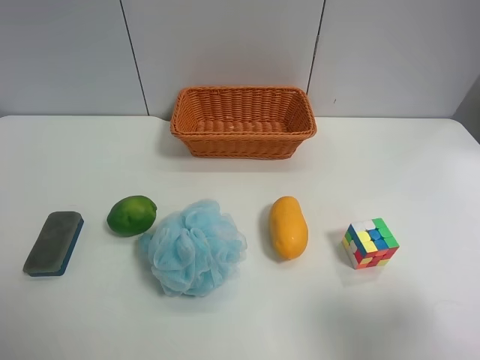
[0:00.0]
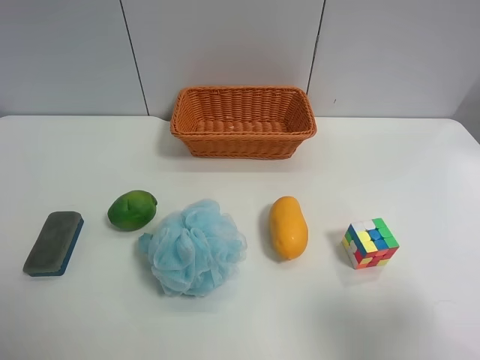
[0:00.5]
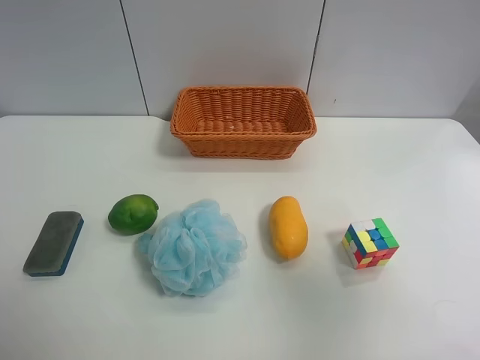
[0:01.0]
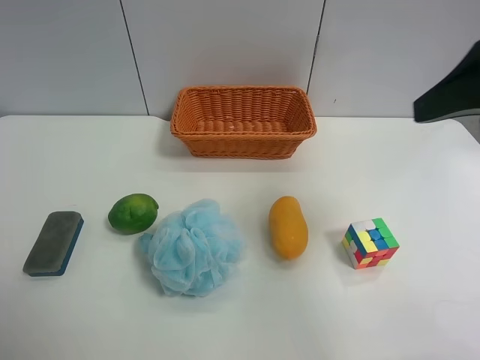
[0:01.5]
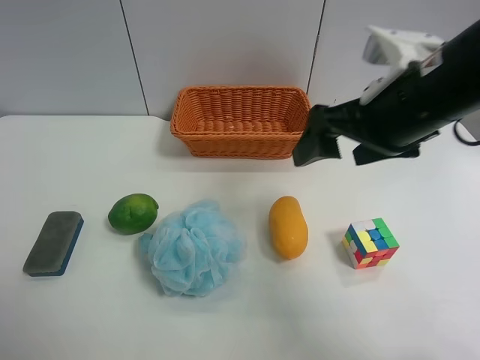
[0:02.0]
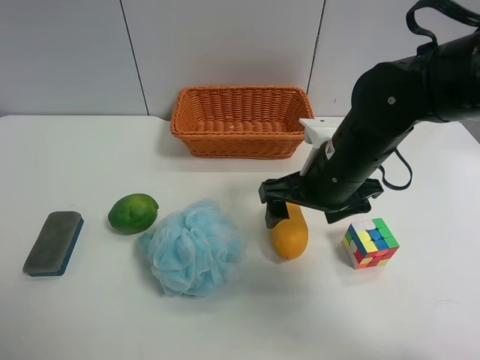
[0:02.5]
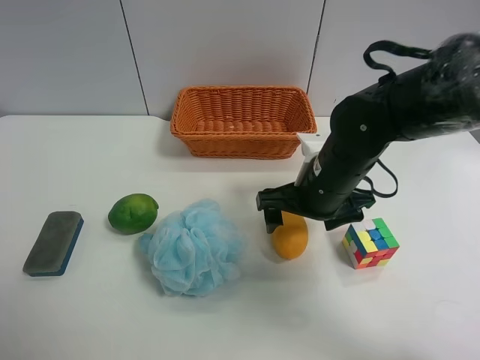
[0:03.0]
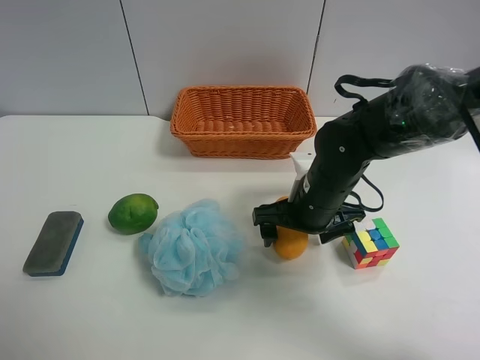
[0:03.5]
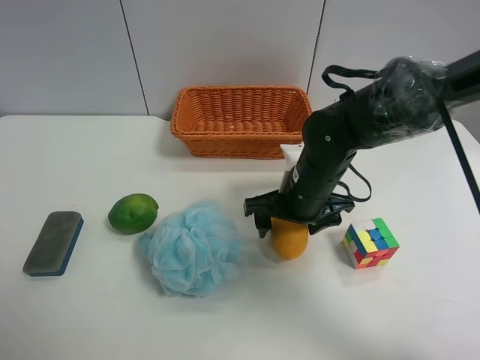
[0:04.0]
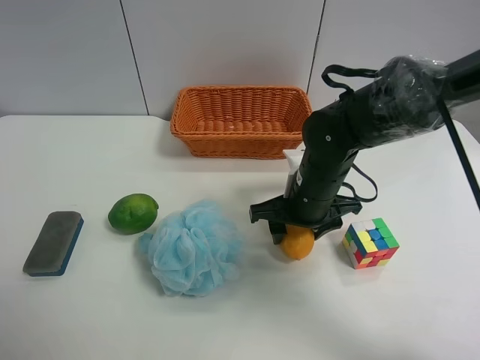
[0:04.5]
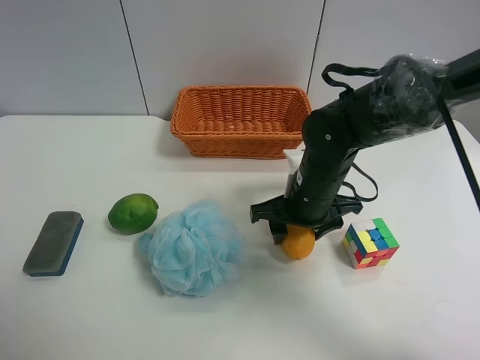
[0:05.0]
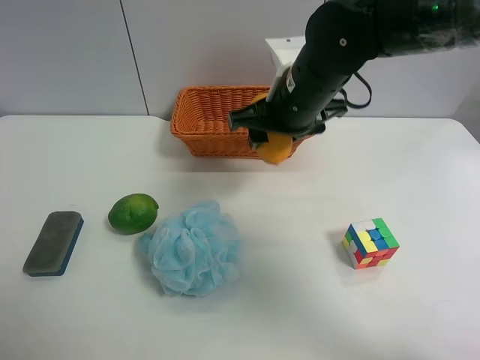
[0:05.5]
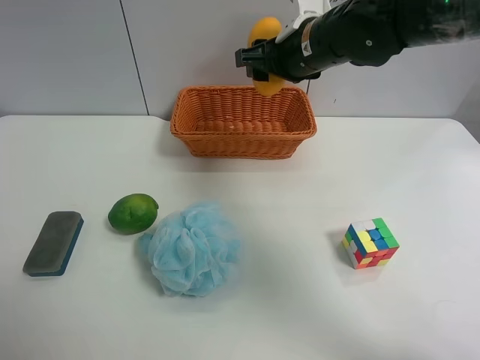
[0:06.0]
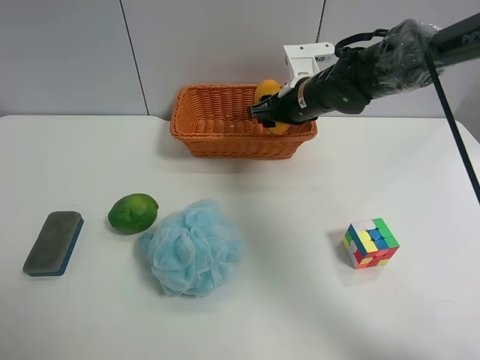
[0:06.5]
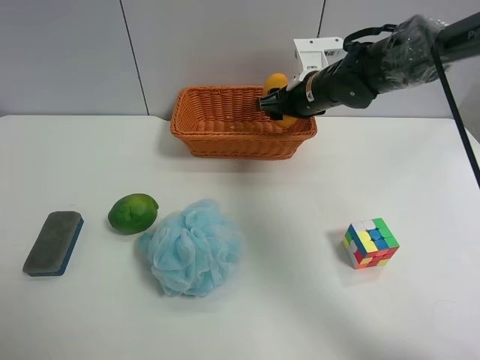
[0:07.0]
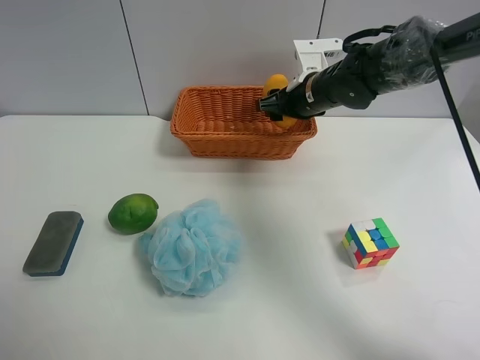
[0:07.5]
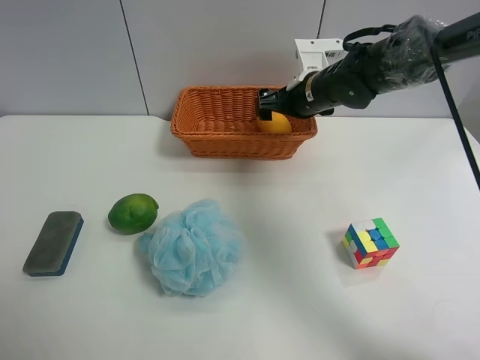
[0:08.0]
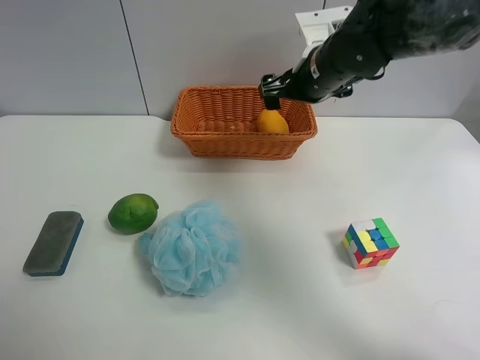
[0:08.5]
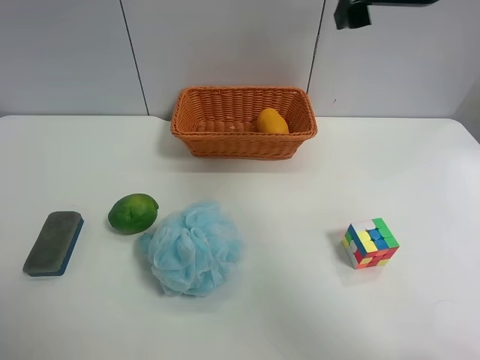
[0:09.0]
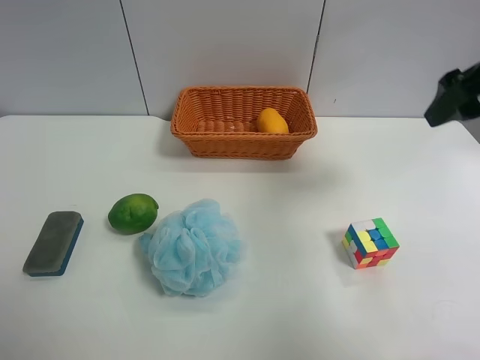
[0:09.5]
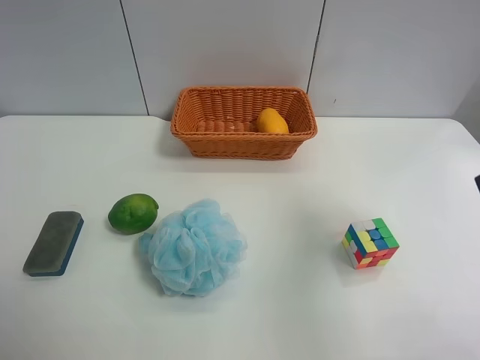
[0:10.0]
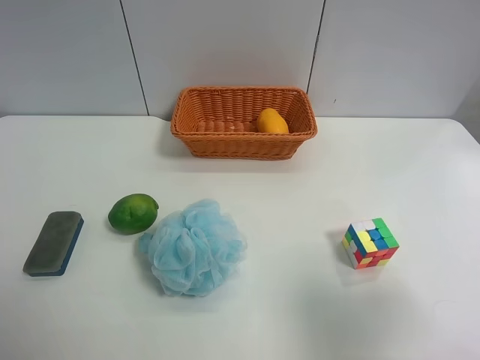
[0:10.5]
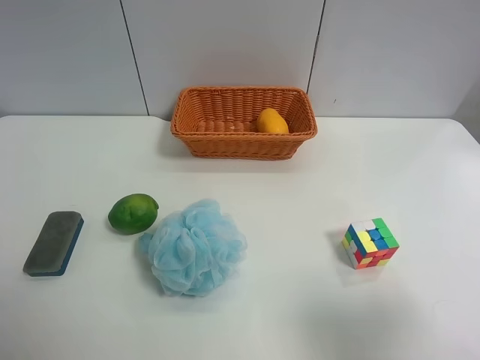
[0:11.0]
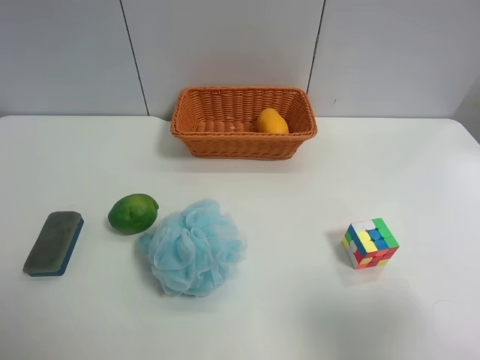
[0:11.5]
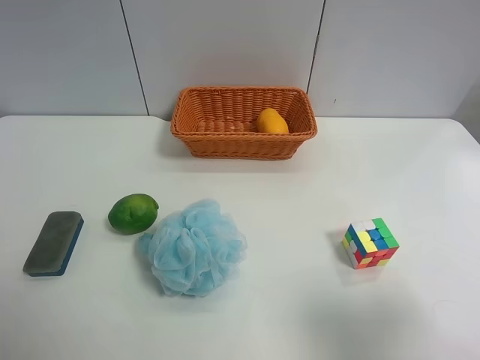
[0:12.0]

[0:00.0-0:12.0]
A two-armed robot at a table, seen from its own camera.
Task of the whole recording: Randomly grab green lemon or mangoes from the table and put them in a basket.
Step, 0:00.0 to 0:04.5: Grasp the mango with the right gripper.
Step, 0:05.0 to 0:08.5: Place the mango into the basket with the right gripper.
0:00.0 to 0:02.0: The right gripper is displaced forward and to the left by about 25 cm.
0:02.0 to 0:04.0: The right gripper heads downward, covering some 15 cm.
0:04.0 to 0:06.0: The right gripper goes about 15 cm upward and forward, and closes up.
0:06.0 to 0:08.0: The right gripper goes approximately 10 cm downward and forward, and opens up.
0:08.0 to 0:10.0: The right gripper travels backward, to the right and upward by roughly 35 cm.
0:10.0 to 0:12.0: The right gripper is displaced backward by about 15 cm.
